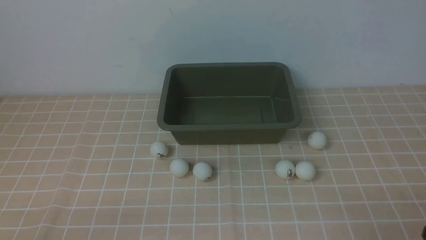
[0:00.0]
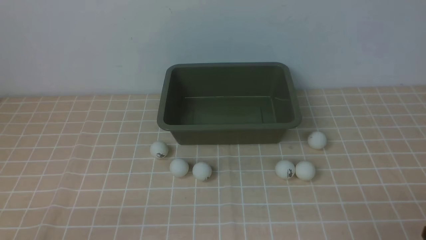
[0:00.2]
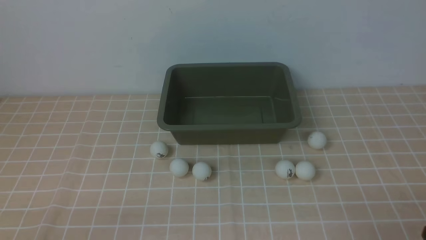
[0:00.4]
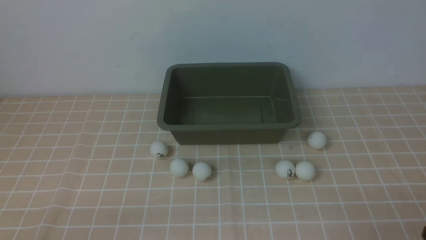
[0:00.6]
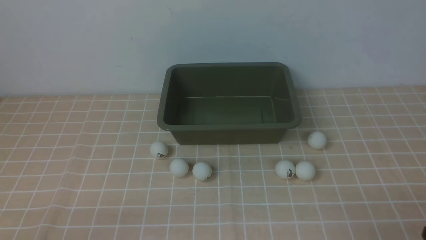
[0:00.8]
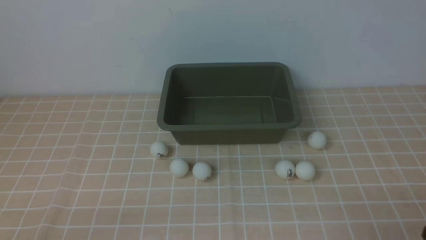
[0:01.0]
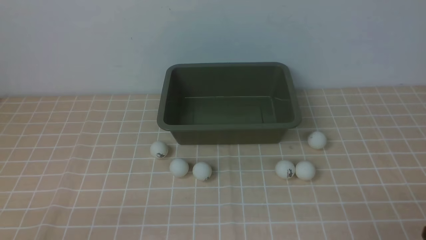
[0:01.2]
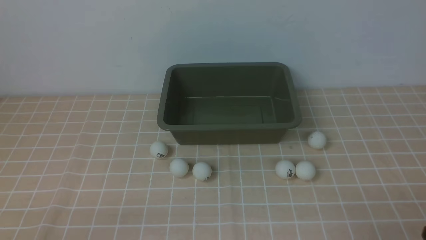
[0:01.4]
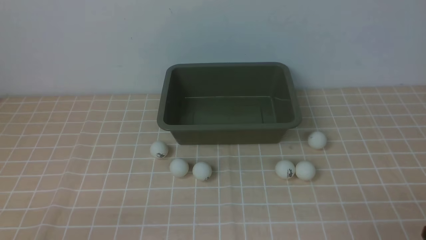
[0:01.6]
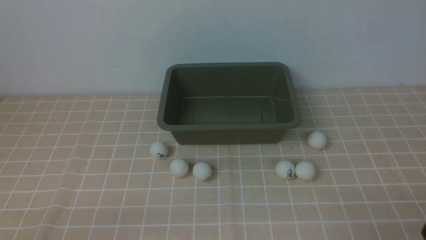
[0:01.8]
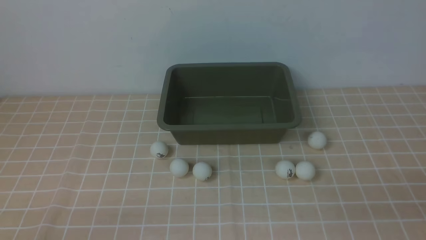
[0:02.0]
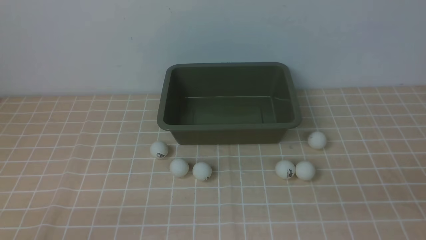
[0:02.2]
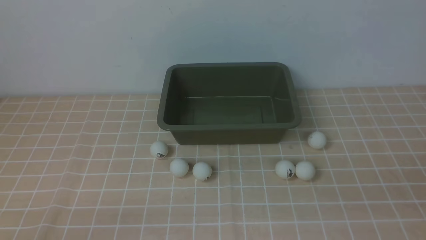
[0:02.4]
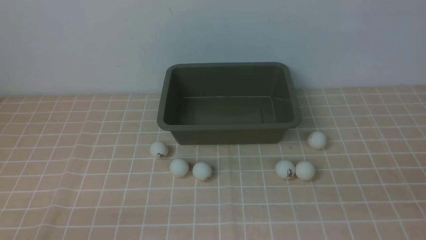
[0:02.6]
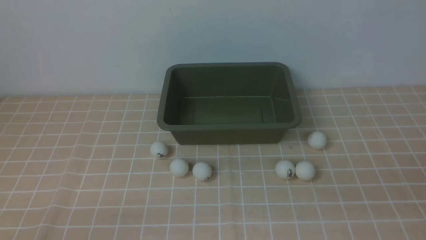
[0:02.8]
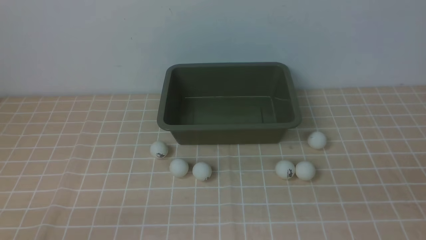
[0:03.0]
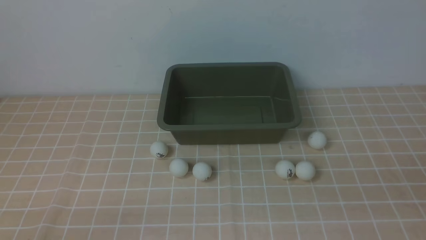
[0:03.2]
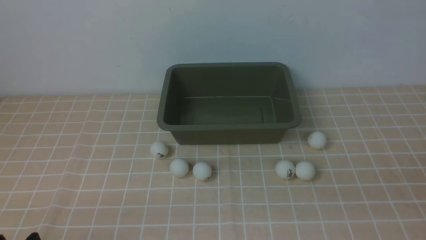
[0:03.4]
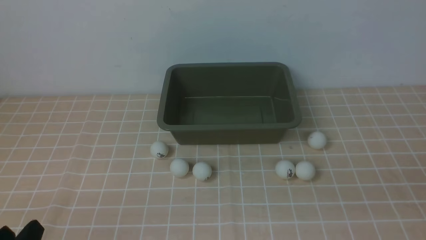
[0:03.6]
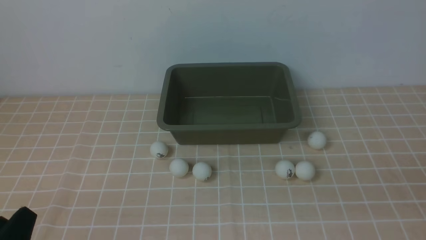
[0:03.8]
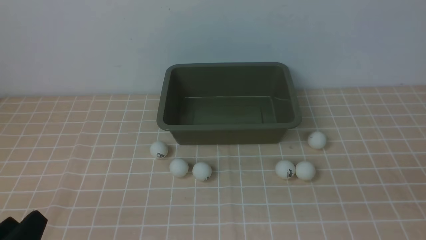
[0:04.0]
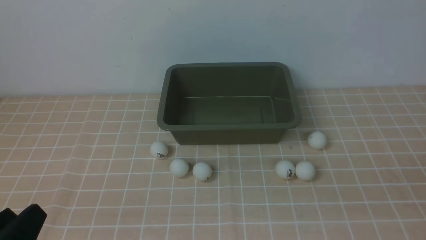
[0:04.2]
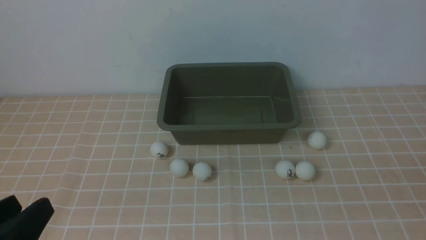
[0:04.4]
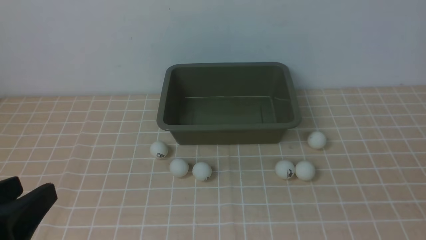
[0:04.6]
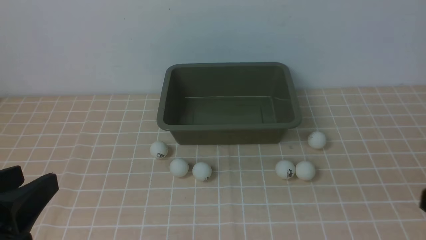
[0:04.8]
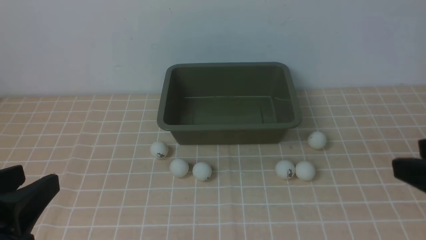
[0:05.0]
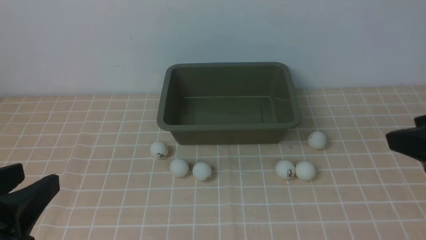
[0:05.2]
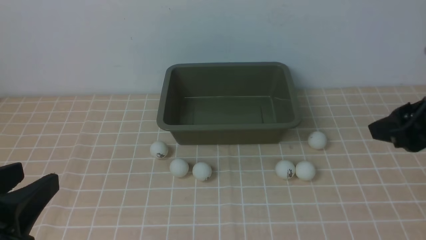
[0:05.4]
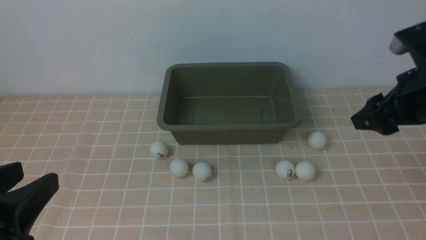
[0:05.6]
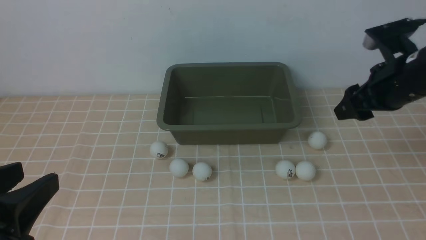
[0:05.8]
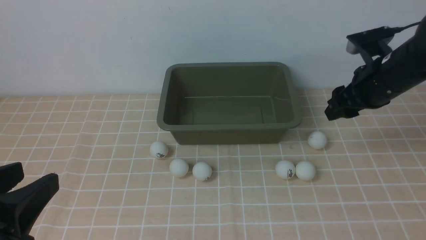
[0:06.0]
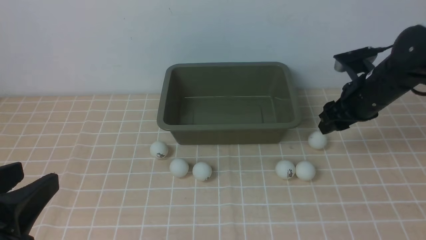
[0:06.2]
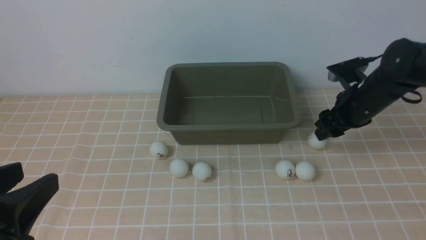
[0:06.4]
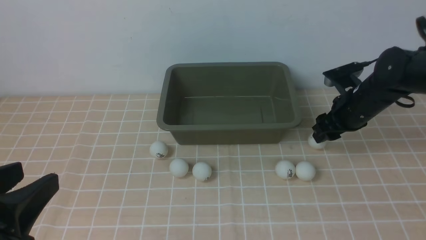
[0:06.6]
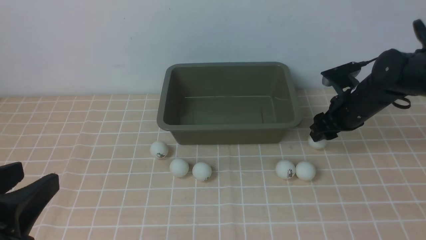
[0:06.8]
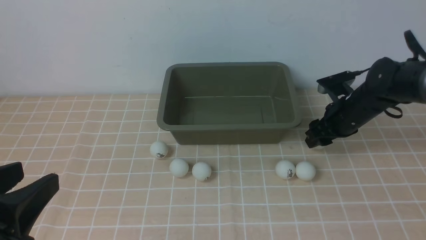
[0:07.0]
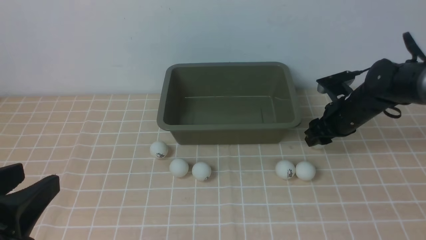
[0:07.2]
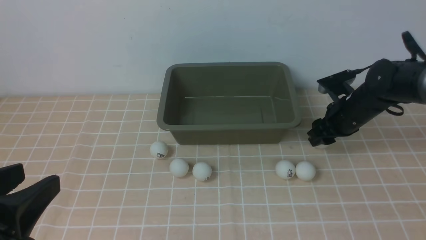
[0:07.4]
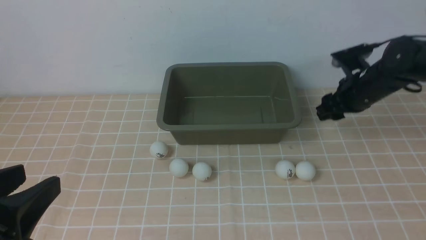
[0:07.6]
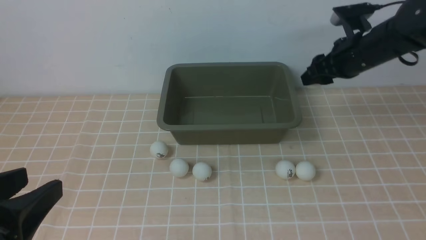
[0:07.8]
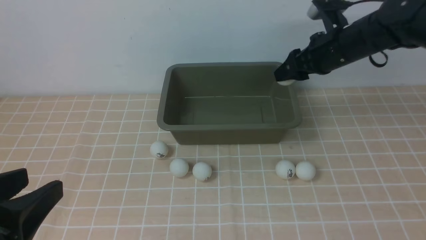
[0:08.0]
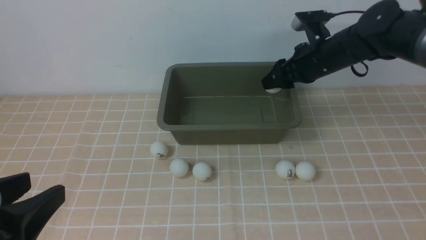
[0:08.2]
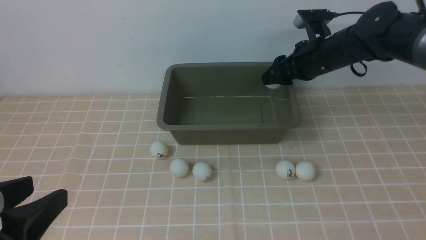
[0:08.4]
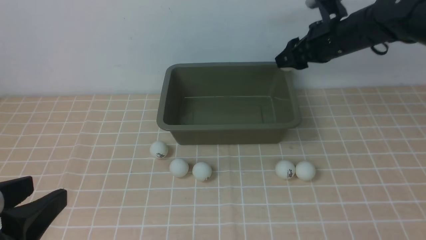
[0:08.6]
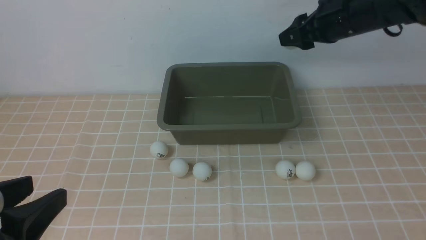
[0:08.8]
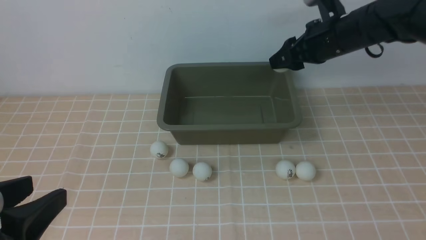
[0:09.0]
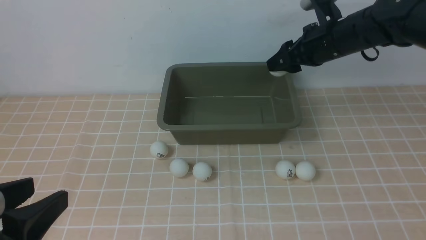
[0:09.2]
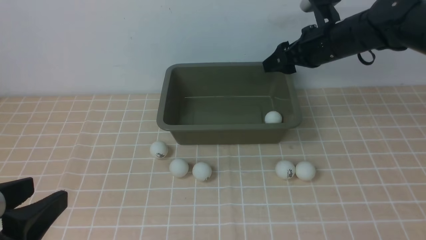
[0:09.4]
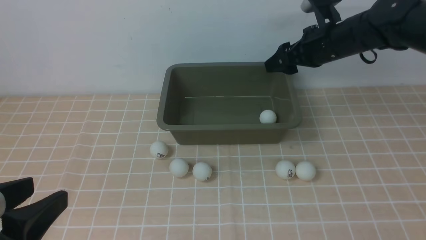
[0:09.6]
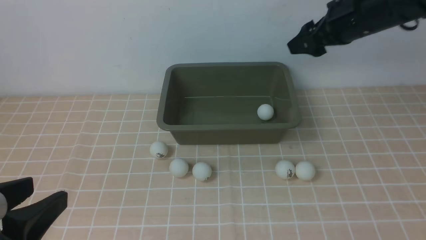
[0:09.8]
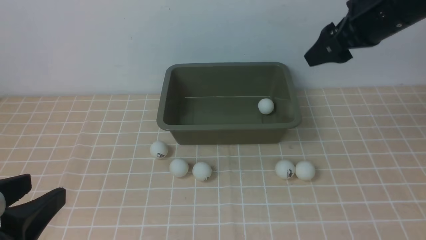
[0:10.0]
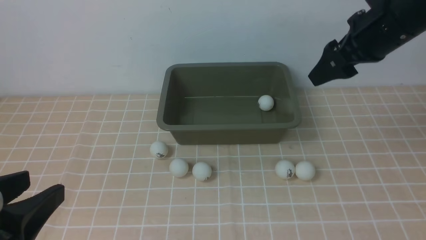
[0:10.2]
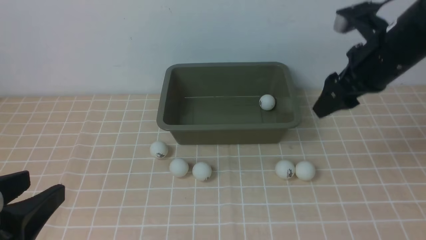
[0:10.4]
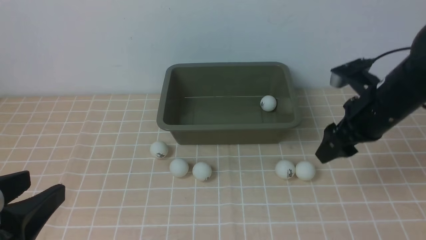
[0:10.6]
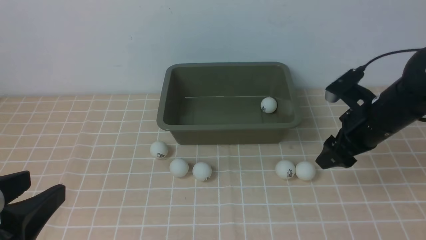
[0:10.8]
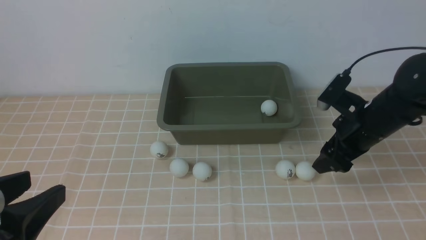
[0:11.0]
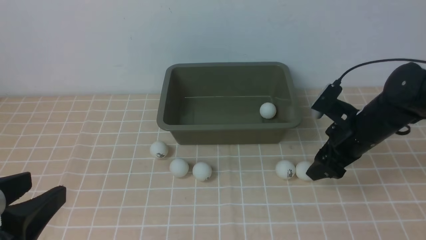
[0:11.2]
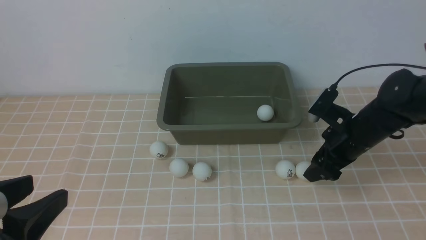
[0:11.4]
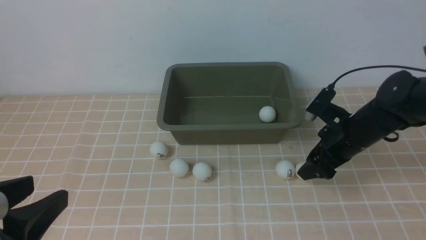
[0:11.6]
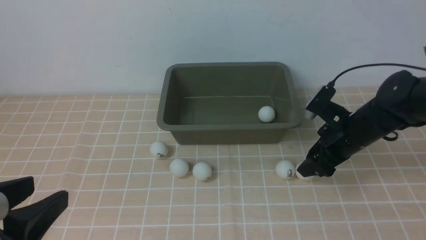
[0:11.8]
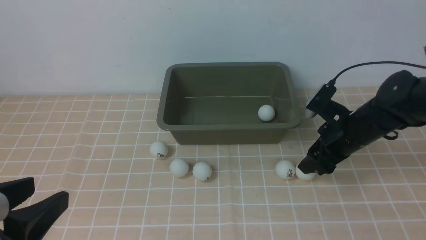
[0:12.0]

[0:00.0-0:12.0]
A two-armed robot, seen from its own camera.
Step, 0:00.0 to 0:07.6: use the right arm to clamp the table tennis ball closest to it.
Step, 0:08.0 to 0:08.6: use the right arm to put the table tennis ball into the box.
0:00.0 to 0:01.6: Both grippers stay about where they are.
0:03.0 to 0:04.4: The left gripper heads upward, covering about 10 cm.
0:04.4 to 0:06.0: The right gripper shifts about 35 cm forward.
0:06.0 to 0:07.6: The right gripper goes about 5 cm forward.
0:07.6 to 0:09.0: The right gripper travels upward and to the left by about 10 cm.
0:09.0 to 0:10.4: The right gripper travels backward by some 10 cm, and opens up.
0:10.4 to 0:12.0: The right gripper travels downward by about 15 cm, and closes up.

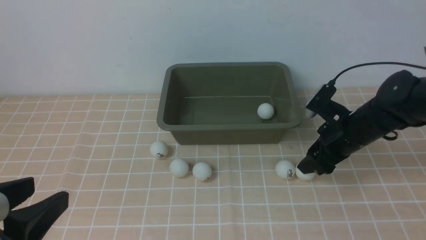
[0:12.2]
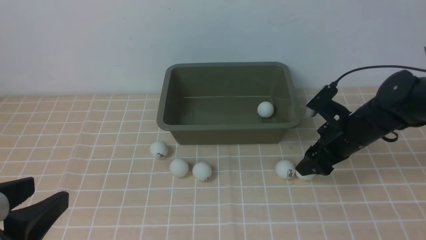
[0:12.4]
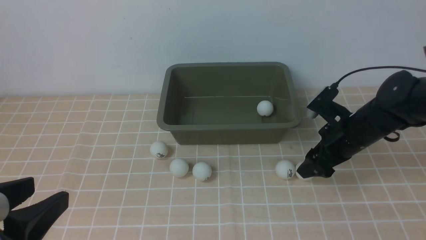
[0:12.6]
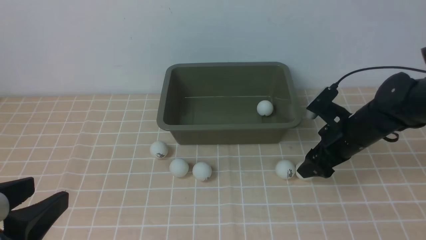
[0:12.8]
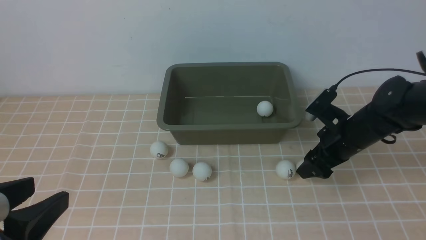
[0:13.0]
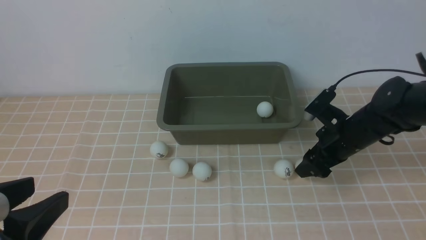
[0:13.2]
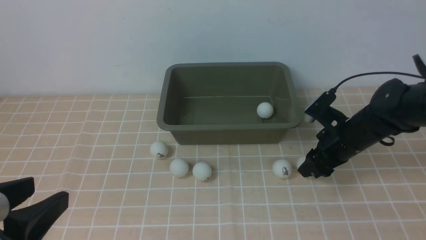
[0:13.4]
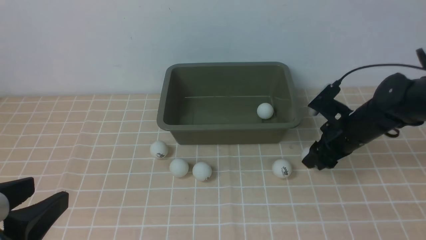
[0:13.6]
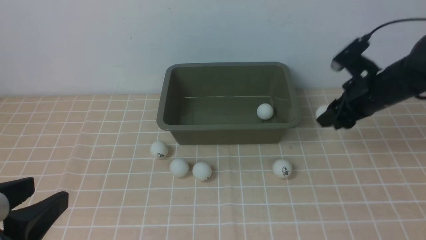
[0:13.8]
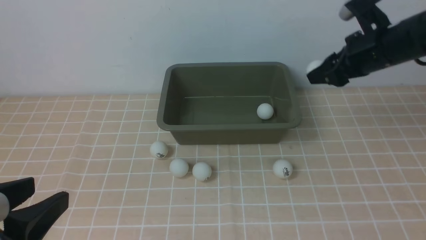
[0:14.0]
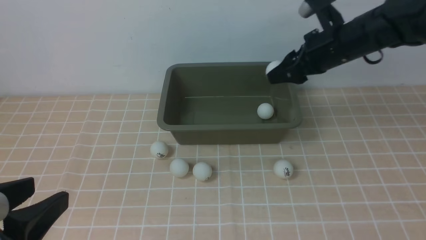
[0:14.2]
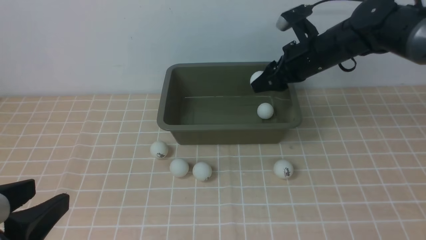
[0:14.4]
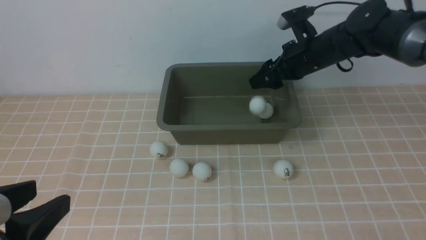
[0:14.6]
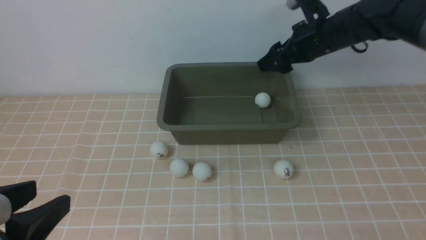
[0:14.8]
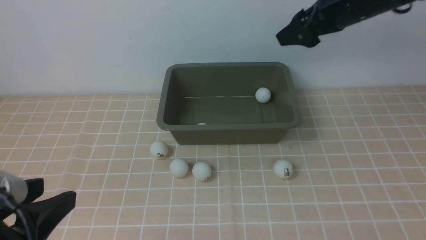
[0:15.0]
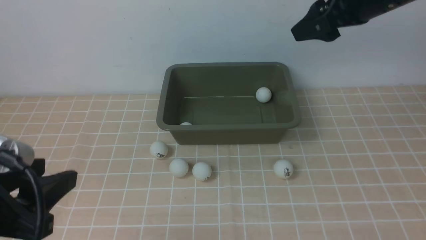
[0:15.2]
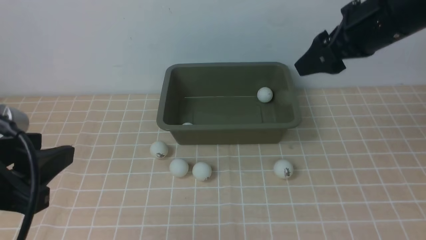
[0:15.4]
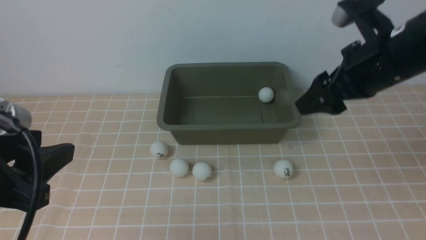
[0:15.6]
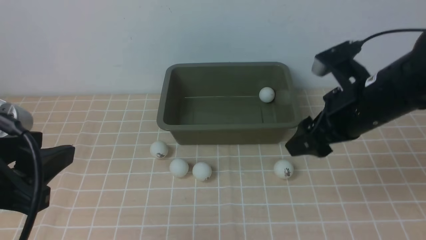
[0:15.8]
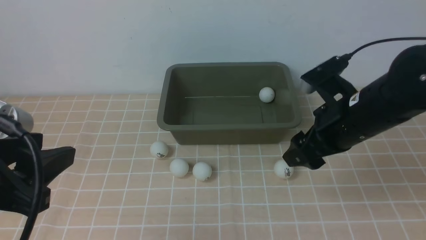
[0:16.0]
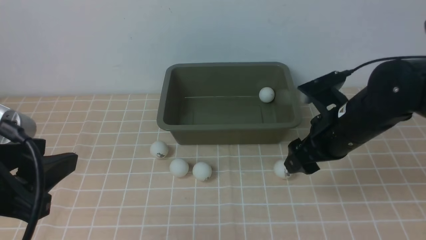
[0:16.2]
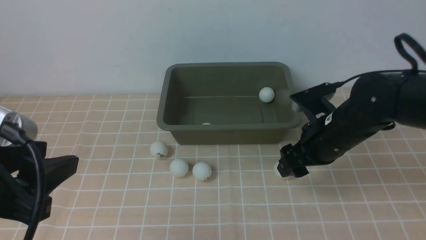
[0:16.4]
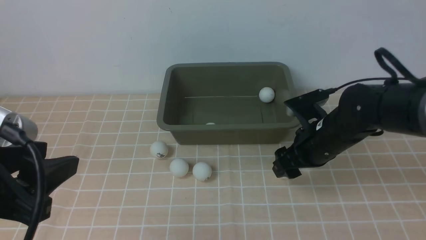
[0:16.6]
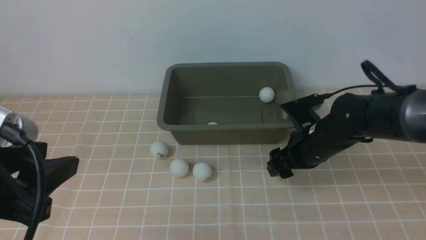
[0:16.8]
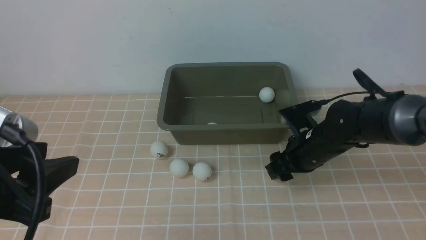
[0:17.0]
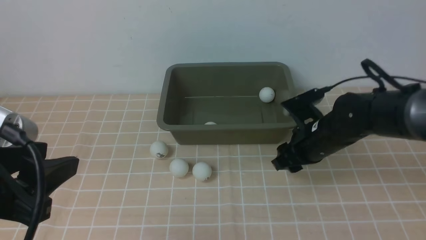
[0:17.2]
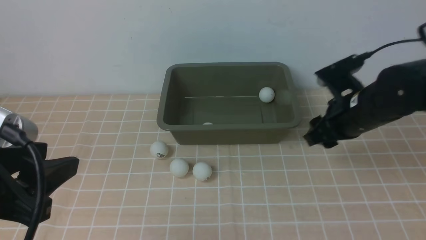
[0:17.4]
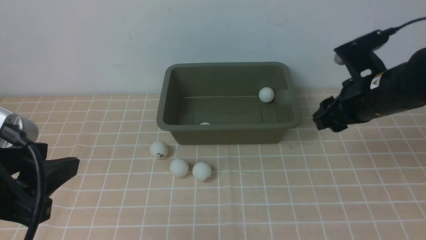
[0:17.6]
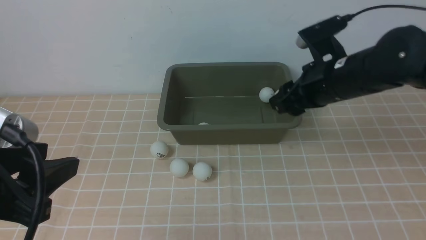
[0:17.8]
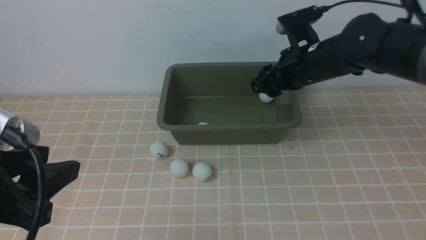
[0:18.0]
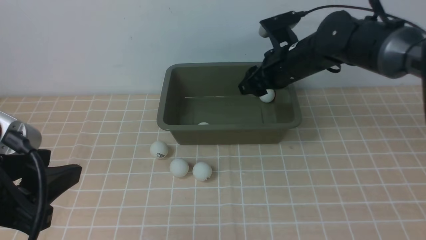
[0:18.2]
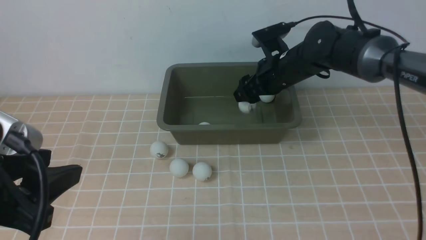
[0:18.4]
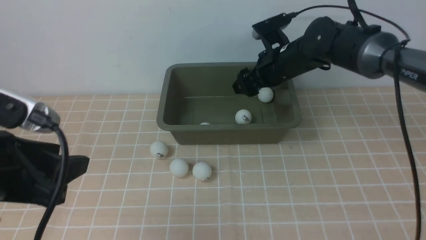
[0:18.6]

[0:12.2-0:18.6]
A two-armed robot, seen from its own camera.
Step, 0:12.6 to 0:14.8: use the right arm to put the table tennis ball into the box.
Step, 0:15.0 to 0:17.6: use the right arm to clamp the table tennis ball closest to it.
0:12.2 to 0:13.8: The right gripper travels upward by about 5 cm, and closes up.
0:13.8 to 0:15.4: The right gripper is displaced upward and backward by approximately 15 cm, and opens up; the left gripper ends up some 5 cm from where it was.
0:15.4 to 0:17.0: The right gripper moves downward, about 20 cm, and closes.
0:17.0 to 0:18.6: The right gripper shifts approximately 15 cm forward and upward, and opens.
